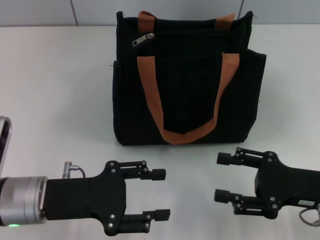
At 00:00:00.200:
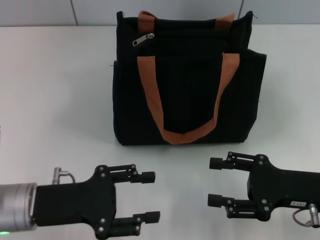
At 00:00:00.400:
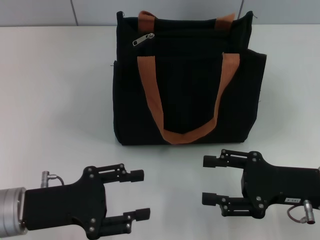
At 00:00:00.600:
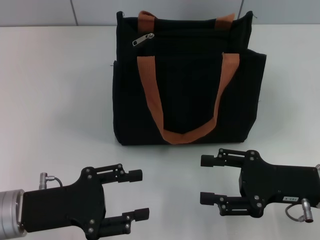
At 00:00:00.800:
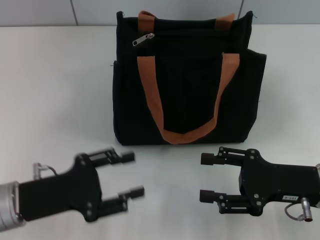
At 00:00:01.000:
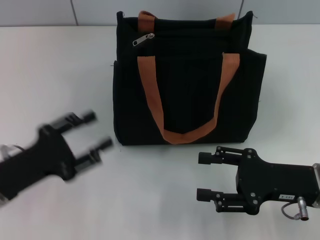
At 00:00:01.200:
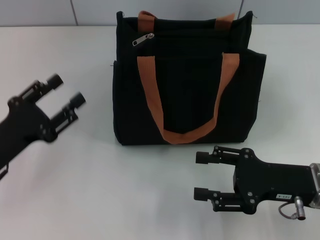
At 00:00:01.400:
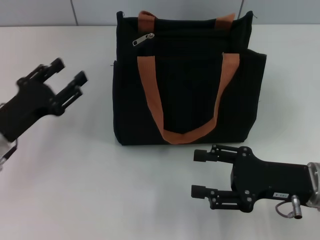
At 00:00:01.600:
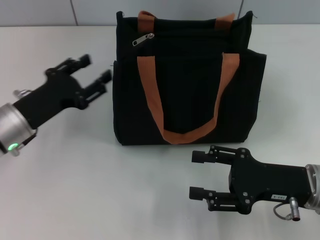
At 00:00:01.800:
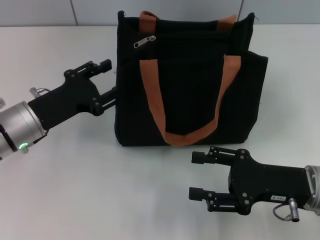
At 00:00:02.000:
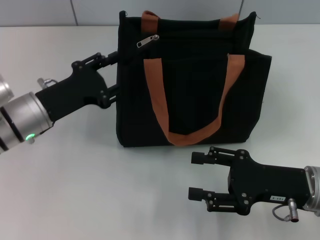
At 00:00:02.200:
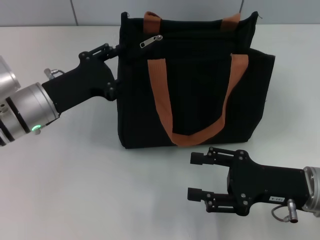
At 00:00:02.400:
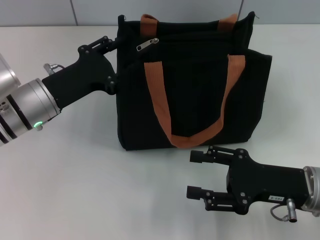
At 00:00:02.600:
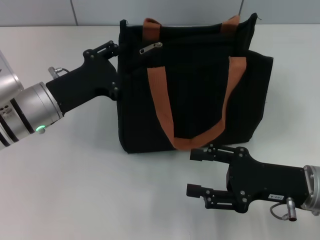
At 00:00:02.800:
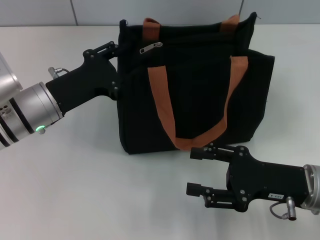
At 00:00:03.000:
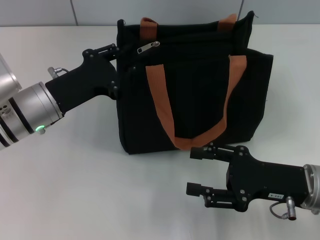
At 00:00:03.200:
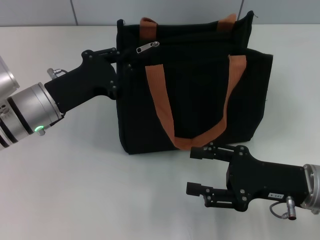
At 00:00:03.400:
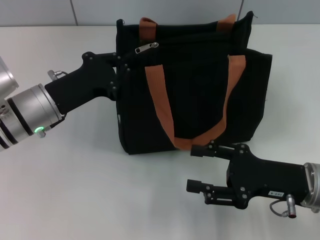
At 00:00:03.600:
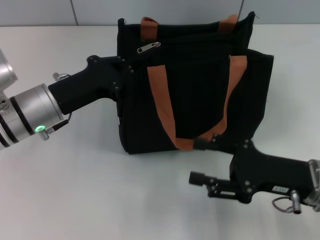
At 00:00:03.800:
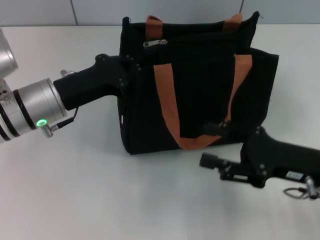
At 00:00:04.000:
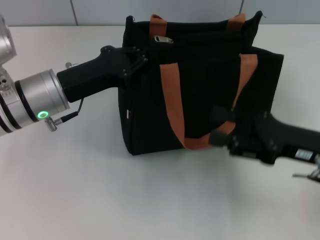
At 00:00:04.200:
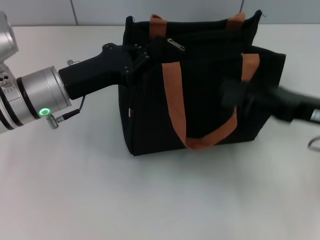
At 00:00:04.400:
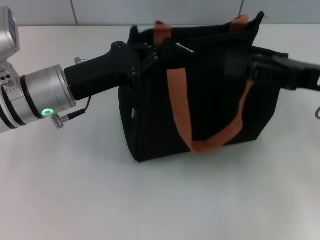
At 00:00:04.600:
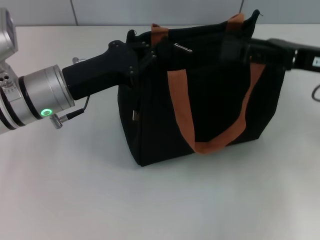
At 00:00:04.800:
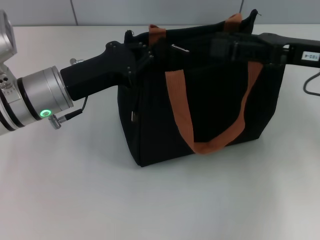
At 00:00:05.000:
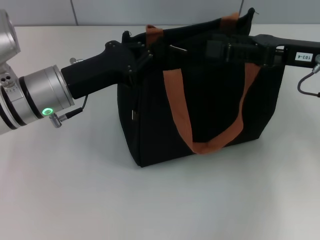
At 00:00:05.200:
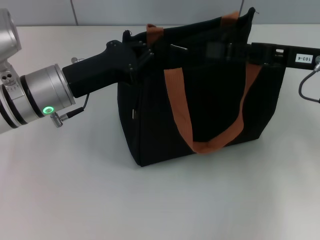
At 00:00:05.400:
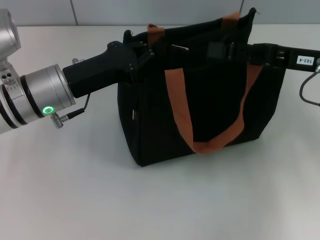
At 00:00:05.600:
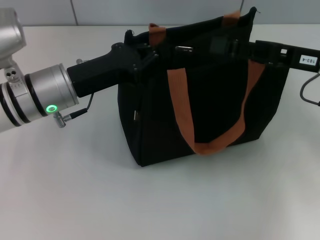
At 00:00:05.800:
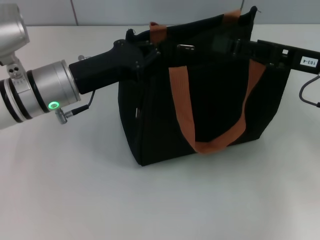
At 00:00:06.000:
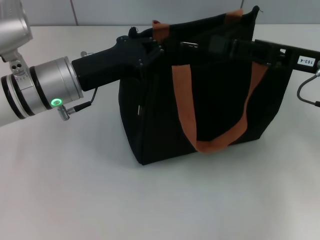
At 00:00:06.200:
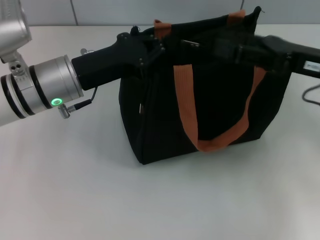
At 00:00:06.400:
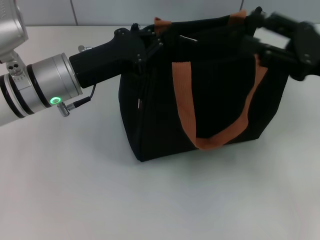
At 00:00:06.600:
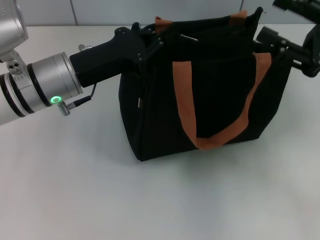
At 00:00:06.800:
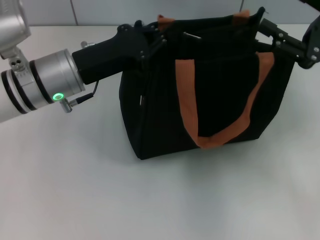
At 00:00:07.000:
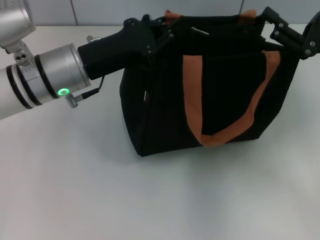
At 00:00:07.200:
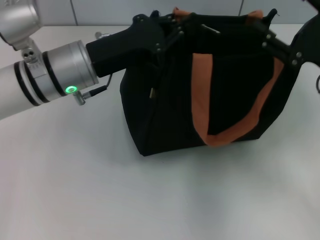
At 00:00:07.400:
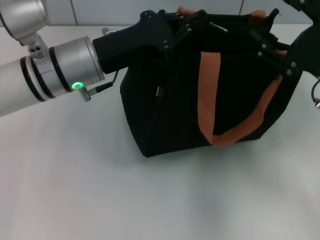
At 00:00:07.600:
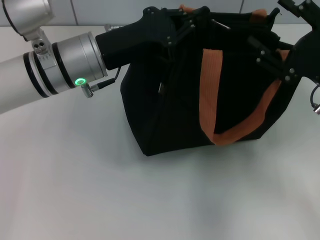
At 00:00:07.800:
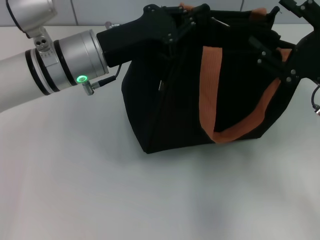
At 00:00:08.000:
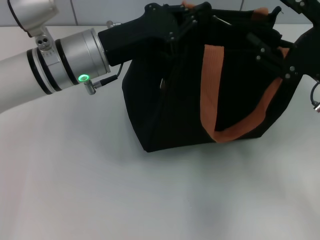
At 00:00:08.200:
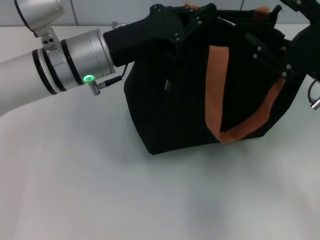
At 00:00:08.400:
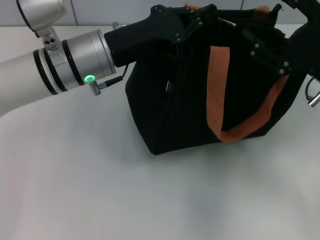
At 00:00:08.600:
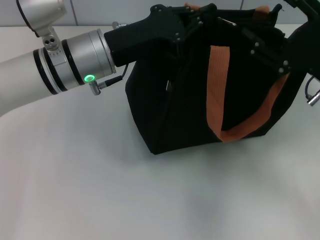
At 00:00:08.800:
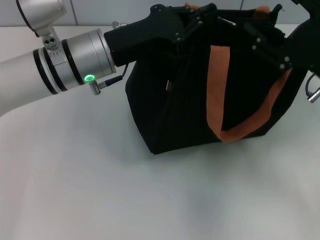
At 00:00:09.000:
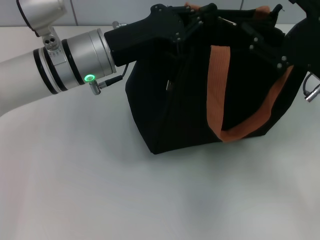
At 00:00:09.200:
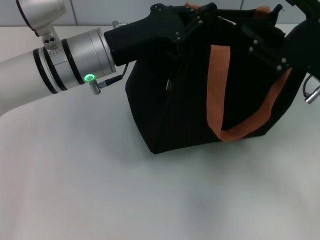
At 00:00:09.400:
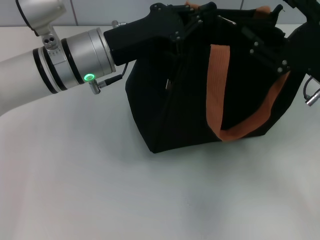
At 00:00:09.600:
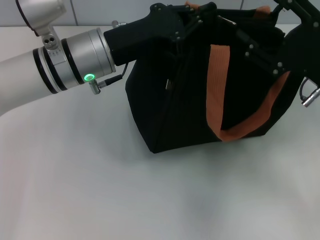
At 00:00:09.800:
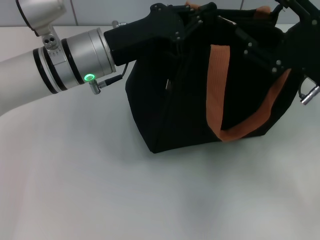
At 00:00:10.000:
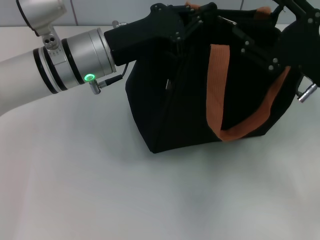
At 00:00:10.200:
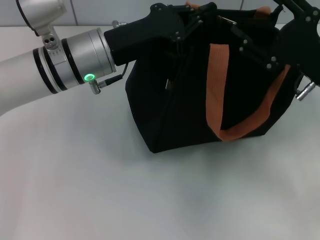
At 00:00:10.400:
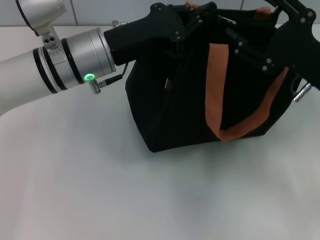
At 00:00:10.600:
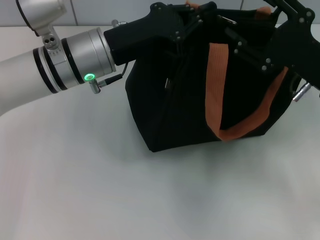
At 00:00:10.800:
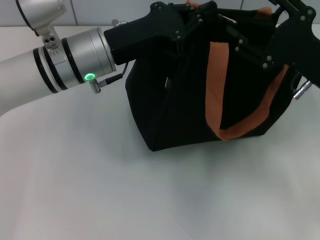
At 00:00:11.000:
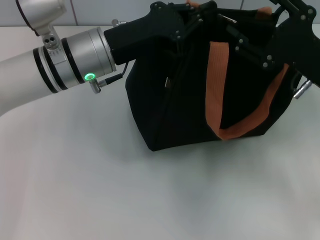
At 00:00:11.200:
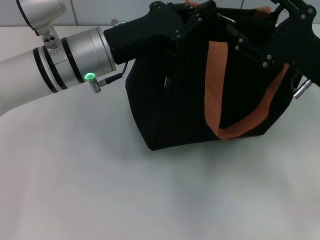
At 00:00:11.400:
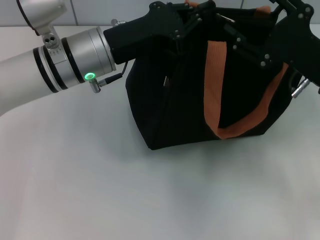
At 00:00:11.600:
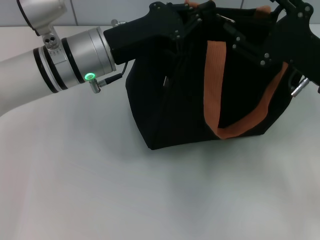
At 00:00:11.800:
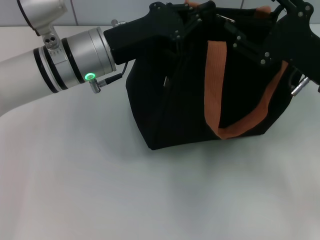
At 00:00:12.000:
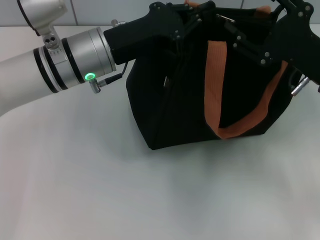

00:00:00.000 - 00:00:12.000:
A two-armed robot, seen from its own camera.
00:00:00.000 - 00:00:01.600: The left gripper goes about 10 cm forward.
00:00:01.600 - 00:00:03.000: The left gripper ends up some 5 cm from where it was.
00:00:03.000 - 00:00:04.400: The right gripper heads upward and forward, covering approximately 15 cm; the left gripper closes its fingers.
00:00:04.400 - 00:00:06.000: The grippers stay close to where they were, moving slightly.
00:00:06.000 - 00:00:07.600: The right gripper shifts by roughly 5 cm.
00:00:07.600 - 00:00:10.400: The grippers move only a little.
00:00:10.400 - 00:00:12.000: Both grippers stay put.

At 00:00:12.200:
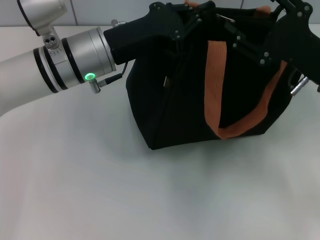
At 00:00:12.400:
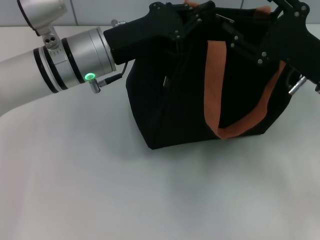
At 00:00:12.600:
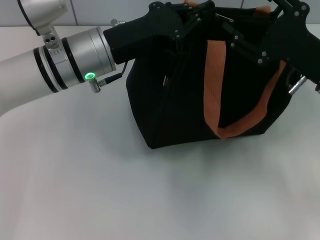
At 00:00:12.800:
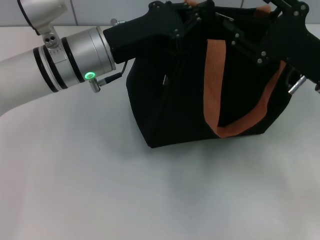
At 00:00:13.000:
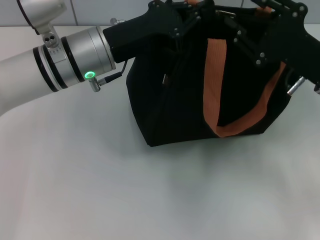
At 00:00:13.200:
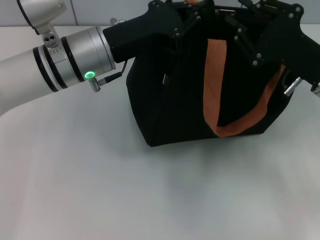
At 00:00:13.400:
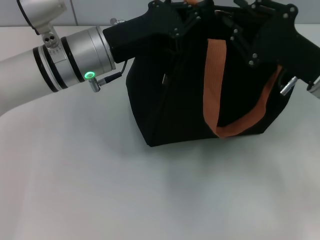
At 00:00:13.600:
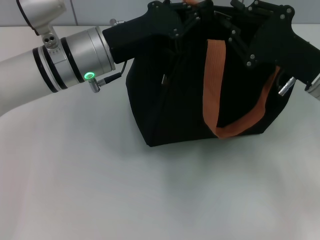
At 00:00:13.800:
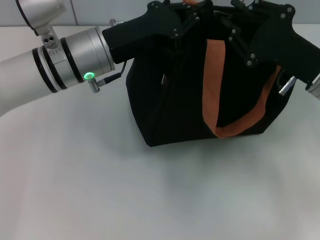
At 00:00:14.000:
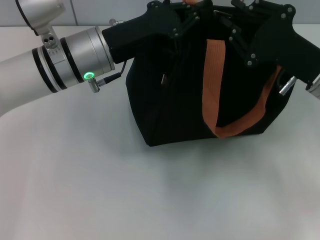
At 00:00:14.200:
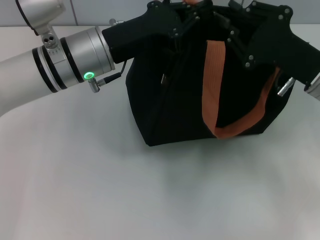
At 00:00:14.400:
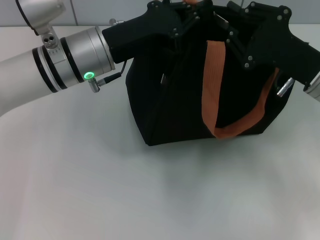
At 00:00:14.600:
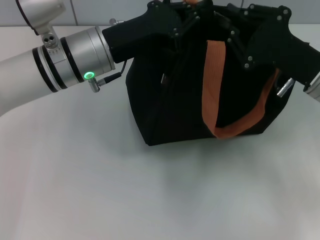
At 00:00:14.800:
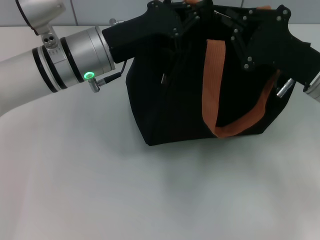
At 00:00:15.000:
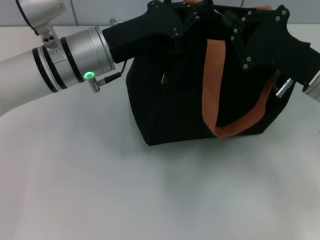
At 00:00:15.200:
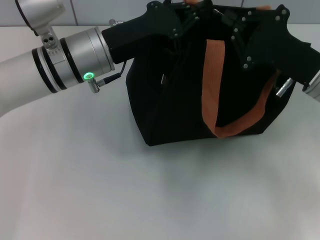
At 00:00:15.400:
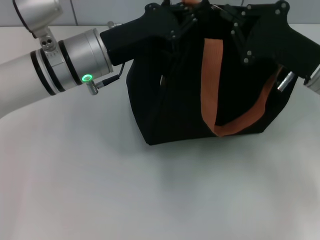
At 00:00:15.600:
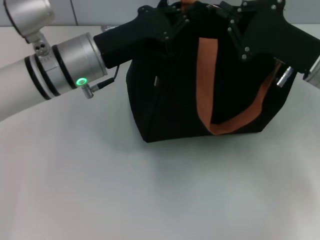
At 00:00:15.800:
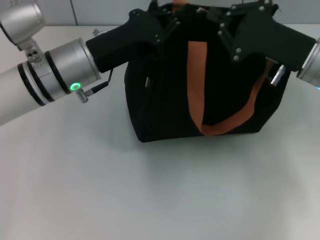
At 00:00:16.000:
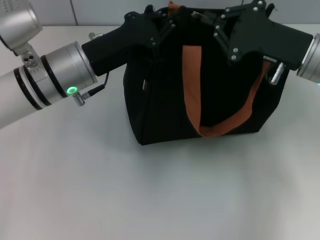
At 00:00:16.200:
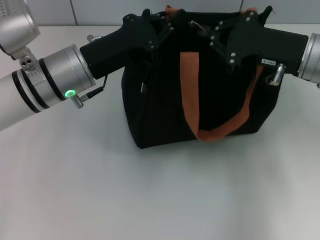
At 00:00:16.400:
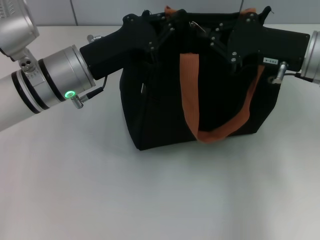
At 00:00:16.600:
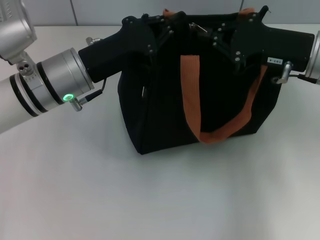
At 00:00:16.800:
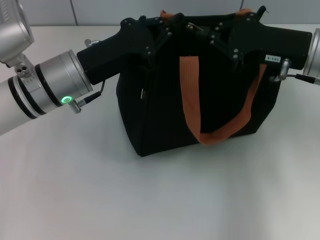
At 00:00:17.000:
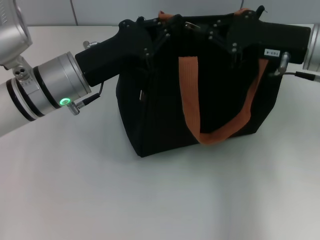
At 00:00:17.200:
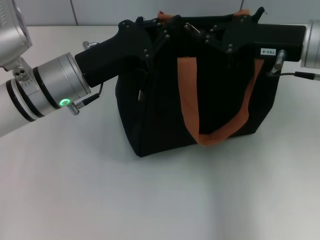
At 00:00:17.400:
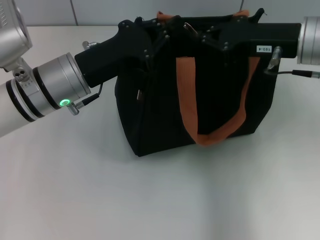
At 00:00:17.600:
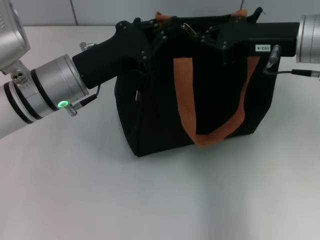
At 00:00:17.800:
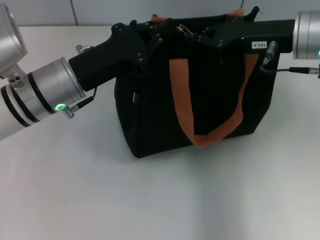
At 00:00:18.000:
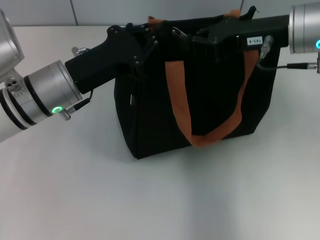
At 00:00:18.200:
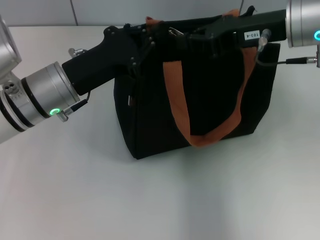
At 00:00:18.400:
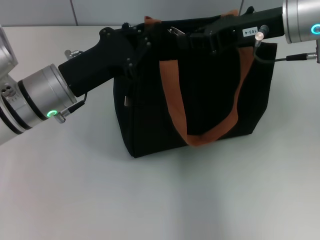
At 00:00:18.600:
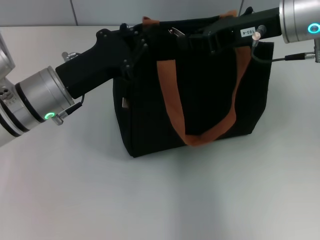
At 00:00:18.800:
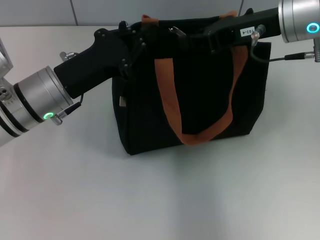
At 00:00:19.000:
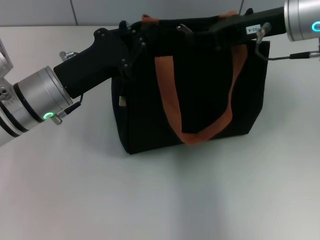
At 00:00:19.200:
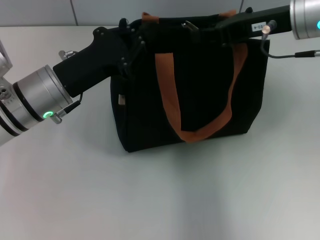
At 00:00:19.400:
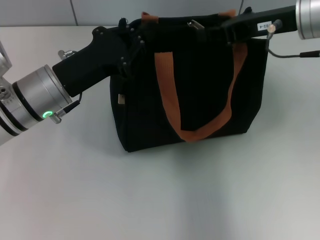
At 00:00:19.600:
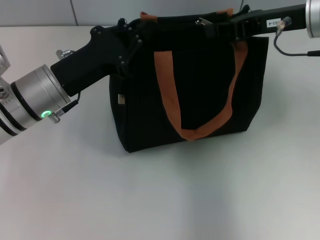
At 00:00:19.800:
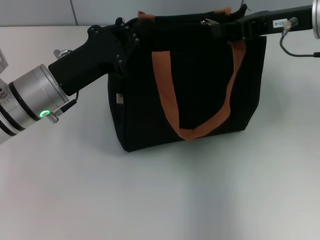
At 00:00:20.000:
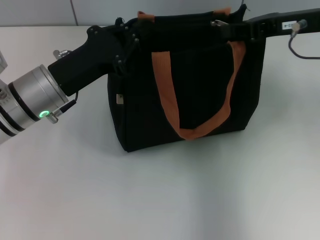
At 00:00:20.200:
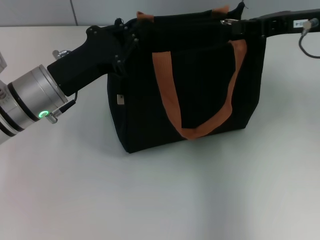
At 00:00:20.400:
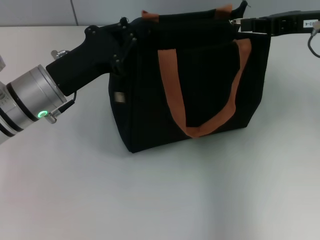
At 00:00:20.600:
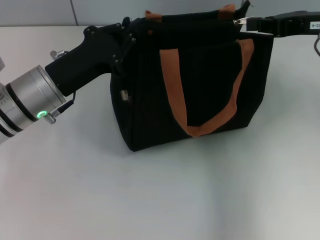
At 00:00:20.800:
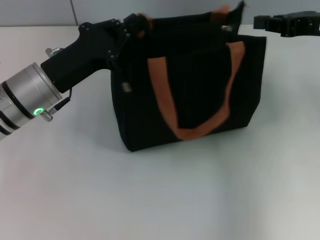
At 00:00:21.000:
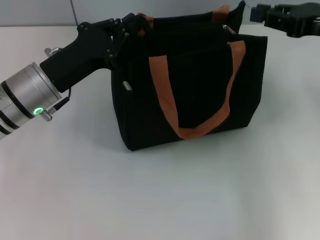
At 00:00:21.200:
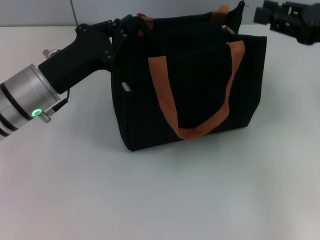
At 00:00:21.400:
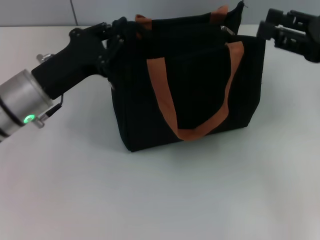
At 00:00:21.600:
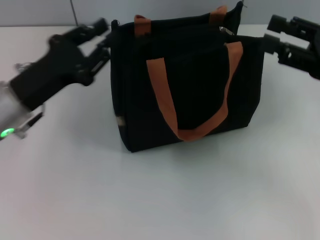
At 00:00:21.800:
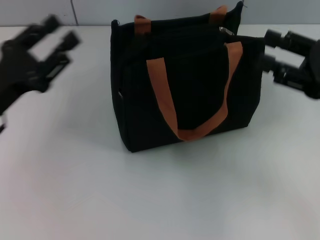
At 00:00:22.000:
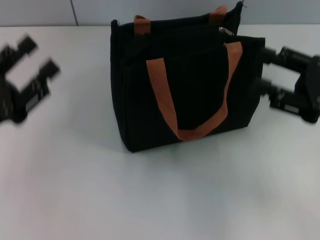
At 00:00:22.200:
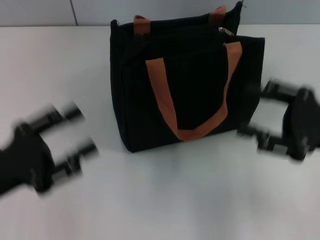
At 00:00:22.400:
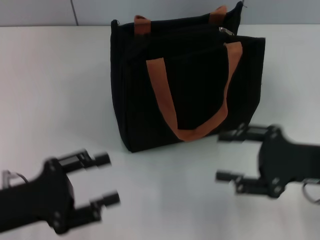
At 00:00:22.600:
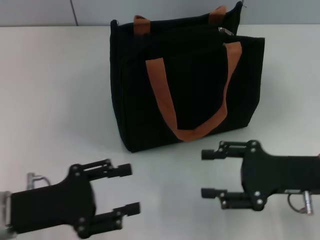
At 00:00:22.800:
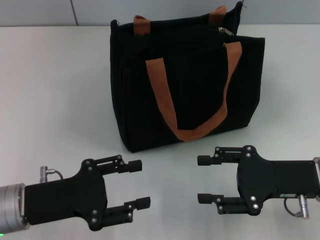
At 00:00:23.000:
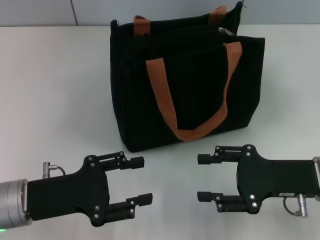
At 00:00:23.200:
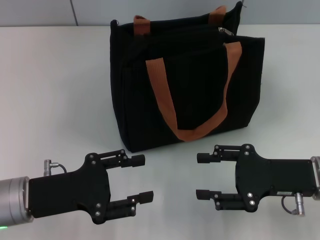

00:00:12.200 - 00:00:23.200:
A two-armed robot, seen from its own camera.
Step, 00:00:12.200 - 00:00:21.200: Pull up the zipper with your right hand.
Step, 00:00:21.400 - 00:00:21.800: Grab the zipper with your left hand.
00:00:12.200 - 00:00:13.800: The right gripper closes.
00:00:13.800 - 00:00:15.400: The right gripper closes its fingers.
00:00:15.400 - 00:00:17.000: The right gripper is displaced upward by roughly 5 cm.
00:00:17.000 - 00:00:18.400: The right gripper shifts by some 5 cm.
00:00:18.400 - 00:00:20.000: The right gripper moves to the right, approximately 5 cm.
00:00:20.000 - 00:00:21.600: The left gripper changes place by approximately 5 cm. The right gripper travels backward and to the right by approximately 10 cm, and opens its fingers.
00:00:21.600 - 00:00:23.200: The right gripper travels downward and to the left by some 10 cm, while the left gripper goes approximately 10 cm backward, and opens its fingers.
